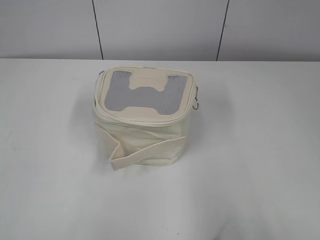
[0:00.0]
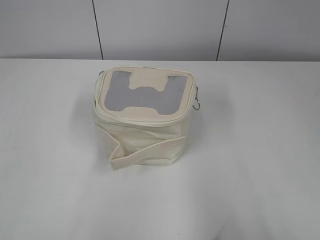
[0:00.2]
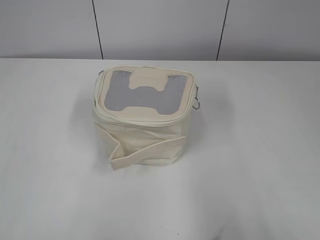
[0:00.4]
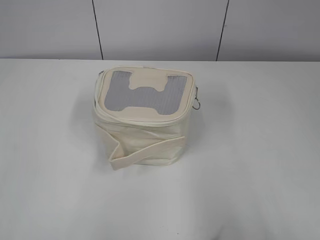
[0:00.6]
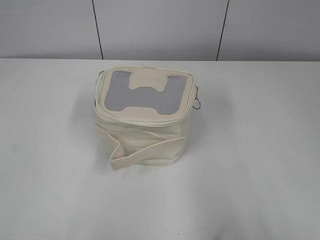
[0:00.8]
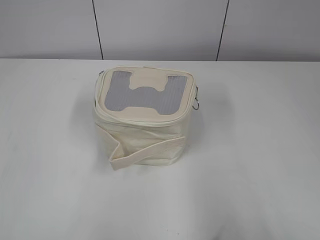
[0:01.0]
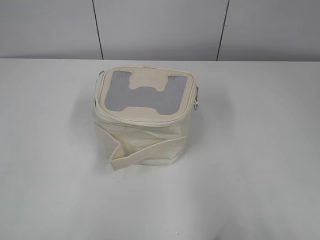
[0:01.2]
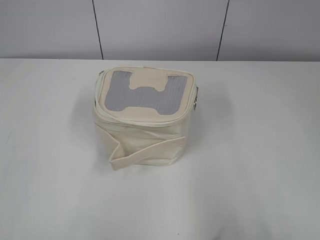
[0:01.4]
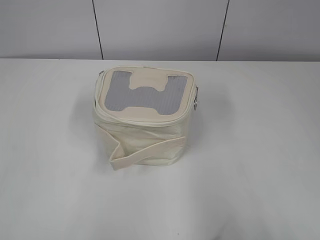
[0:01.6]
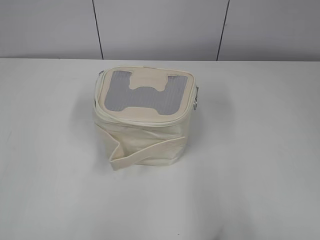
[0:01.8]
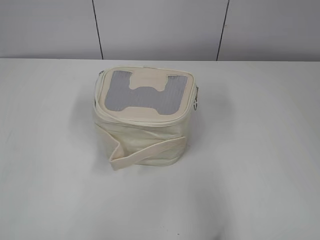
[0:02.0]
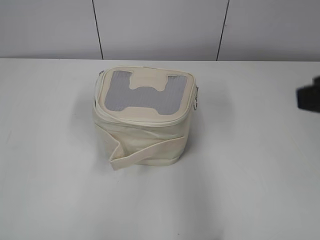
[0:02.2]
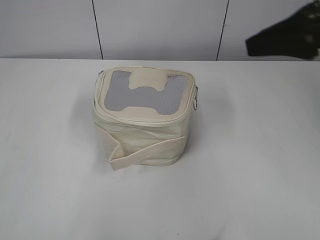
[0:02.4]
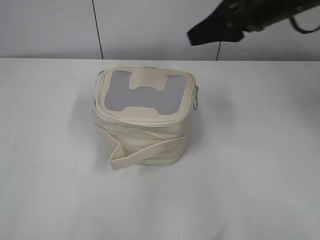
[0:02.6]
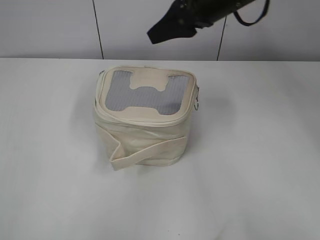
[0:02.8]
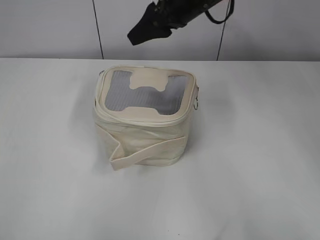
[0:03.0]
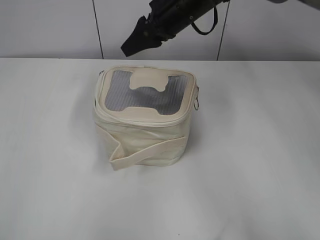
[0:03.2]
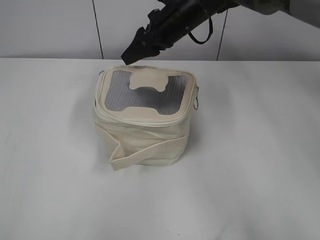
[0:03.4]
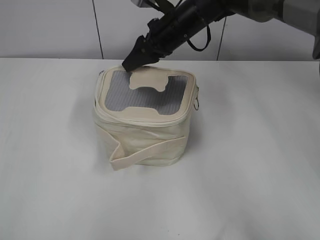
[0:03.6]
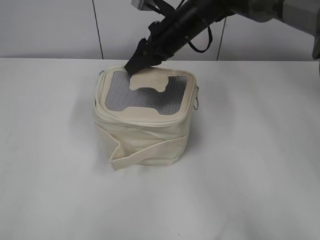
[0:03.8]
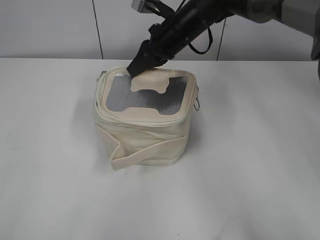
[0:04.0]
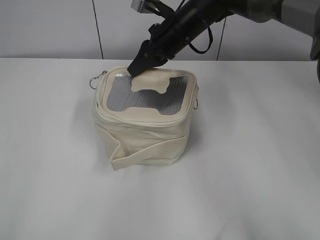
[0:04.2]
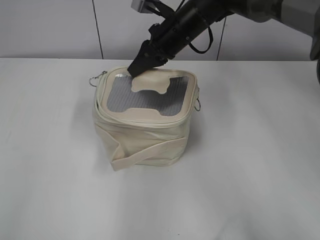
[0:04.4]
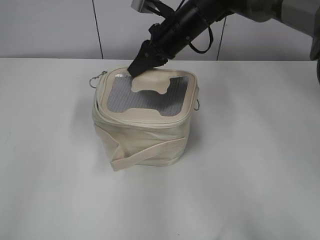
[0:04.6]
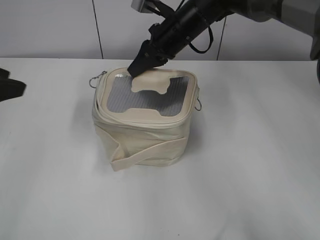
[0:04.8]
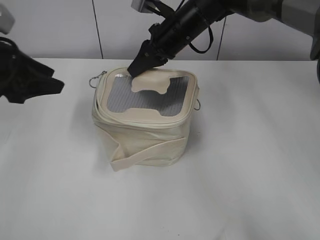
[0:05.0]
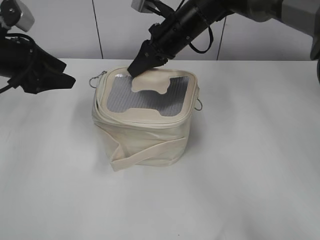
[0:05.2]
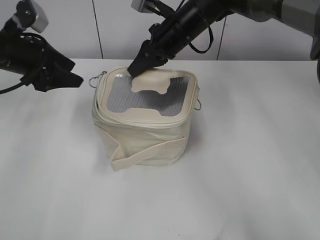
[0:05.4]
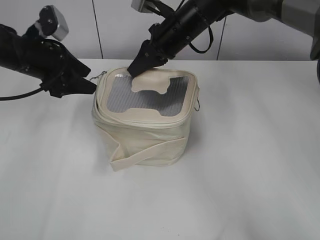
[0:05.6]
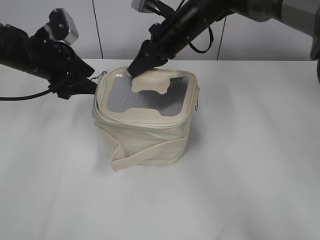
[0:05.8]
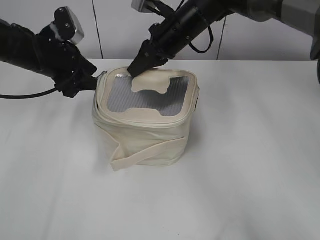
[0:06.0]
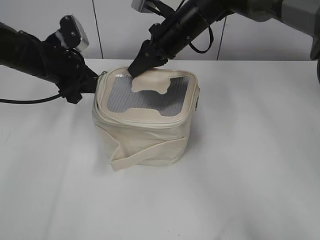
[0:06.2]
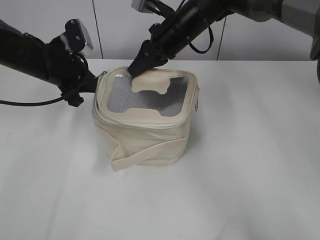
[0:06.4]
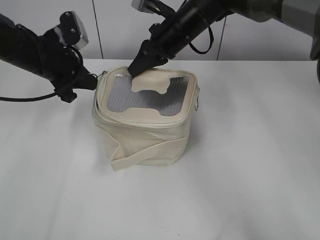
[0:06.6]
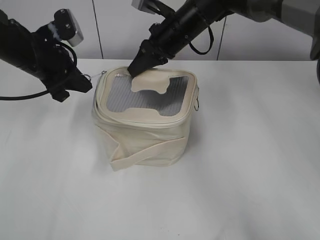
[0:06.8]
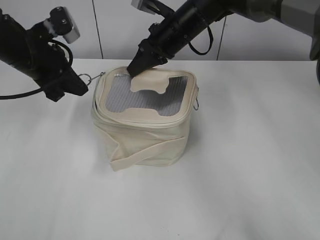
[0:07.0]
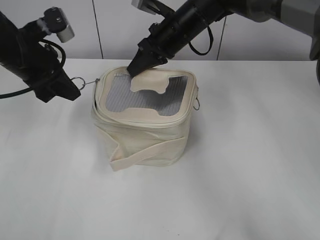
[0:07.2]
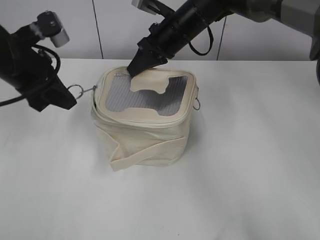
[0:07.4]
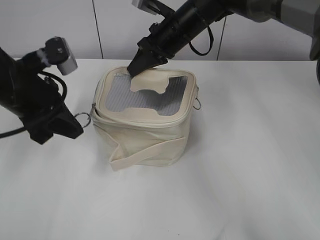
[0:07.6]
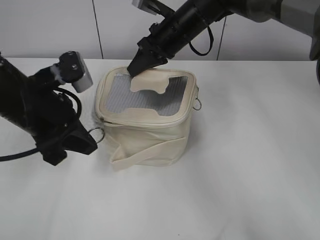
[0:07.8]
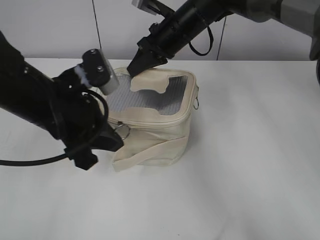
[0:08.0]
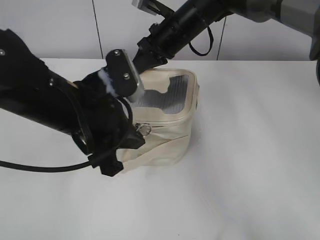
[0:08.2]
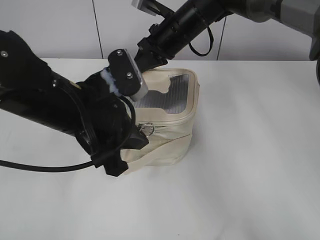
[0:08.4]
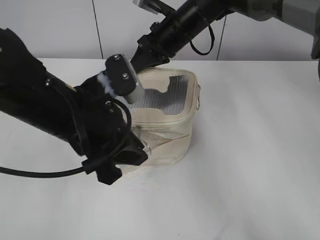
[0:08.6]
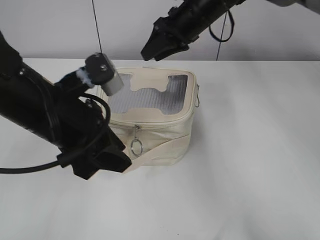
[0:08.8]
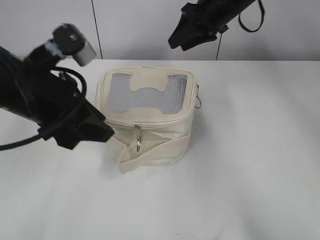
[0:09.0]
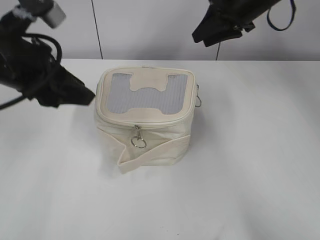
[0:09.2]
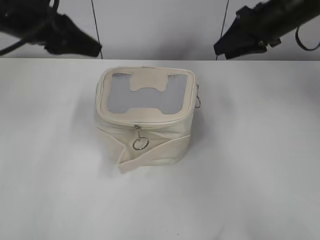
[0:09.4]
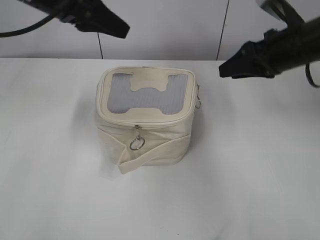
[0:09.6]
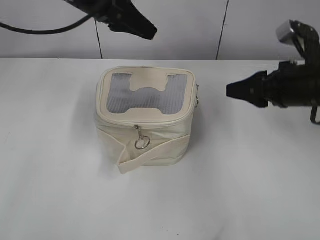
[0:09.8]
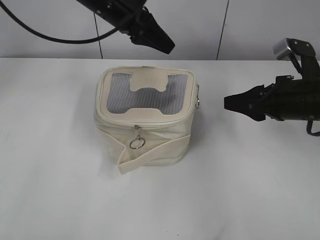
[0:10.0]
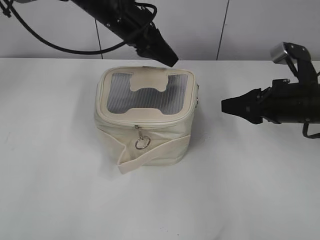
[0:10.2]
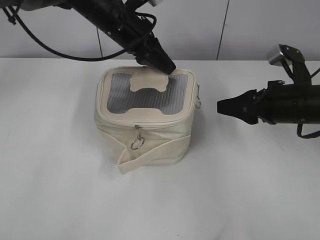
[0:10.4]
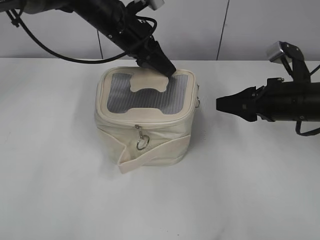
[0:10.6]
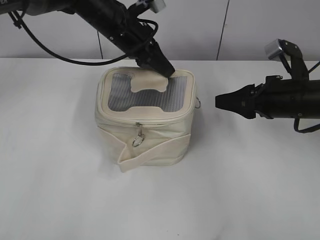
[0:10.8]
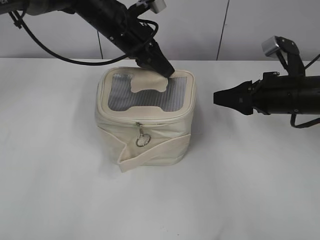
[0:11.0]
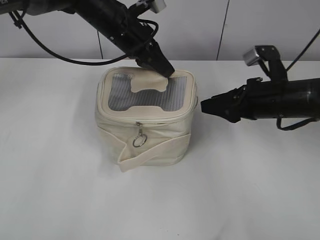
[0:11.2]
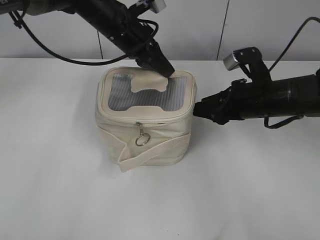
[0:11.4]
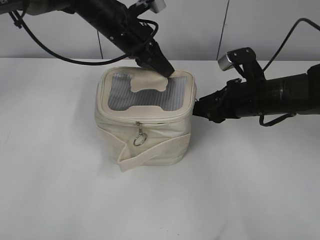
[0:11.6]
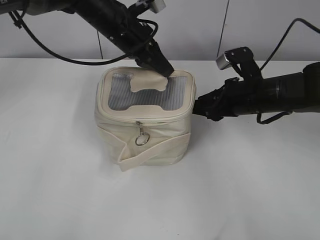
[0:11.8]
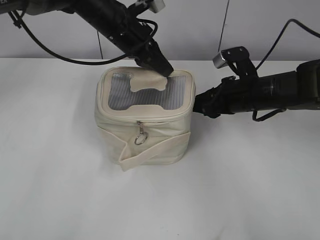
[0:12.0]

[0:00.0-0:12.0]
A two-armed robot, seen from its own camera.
Step, 0:00.0 to 0:08.6: Zip up the bag with your left hand.
0:01.6 to 0:03.0: The right gripper goes about 50 cm forward and to the left.
0:03.0 to 0:04.4: The right gripper moves downward, some 10 cm, and closes. The left gripper heads forward, covering approximately 5 cm.
0:04.4 to 0:06.0: The left gripper heads forward, covering some 35 cm, and opens its fingers.
0:06.0 to 0:07.6: The left gripper travels backward by some 10 cm, and closes.
0:07.6 to 0:09.0: The right gripper is displaced to the right by about 5 cm, and opens. The left gripper is displaced backward and to the right by some 10 cm, and opens its fingers.
0:09.0 to 0:10.4: The left gripper goes some 20 cm forward. The right gripper goes about 25 cm backward, to the right and downward.
0:10.4 to 0:12.0: The left gripper closes. Meanwhile the right gripper heads forward and to the left, covering about 10 cm.

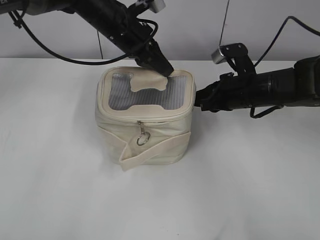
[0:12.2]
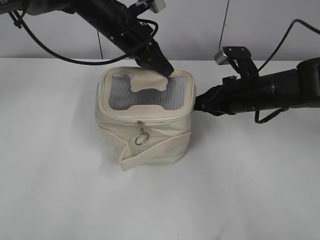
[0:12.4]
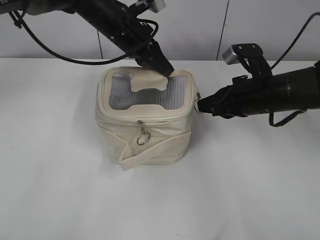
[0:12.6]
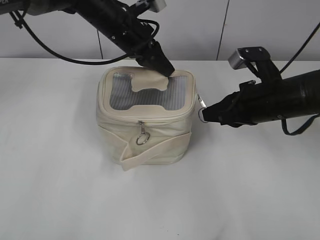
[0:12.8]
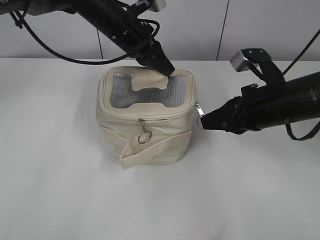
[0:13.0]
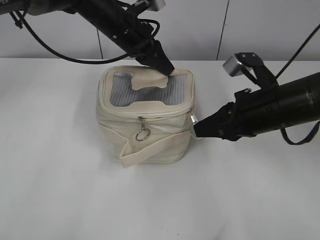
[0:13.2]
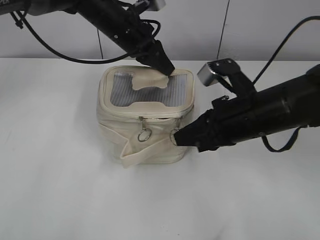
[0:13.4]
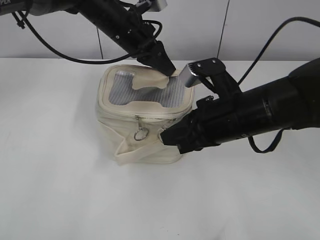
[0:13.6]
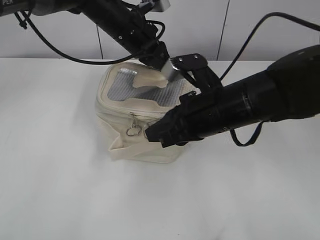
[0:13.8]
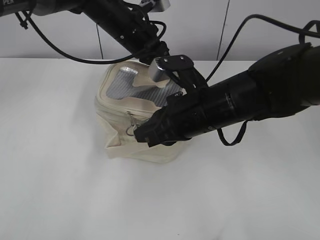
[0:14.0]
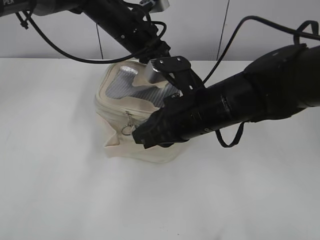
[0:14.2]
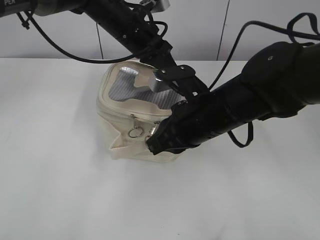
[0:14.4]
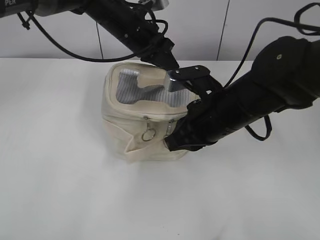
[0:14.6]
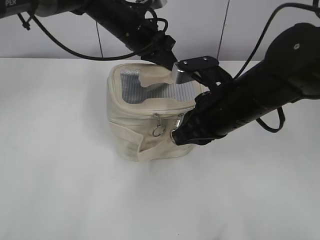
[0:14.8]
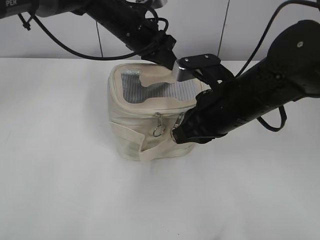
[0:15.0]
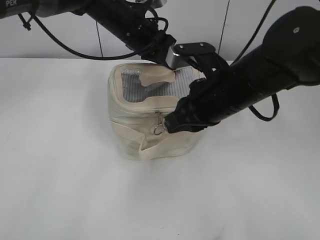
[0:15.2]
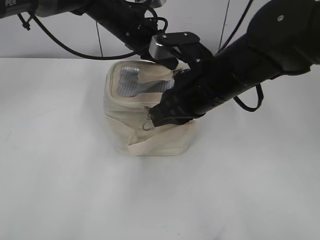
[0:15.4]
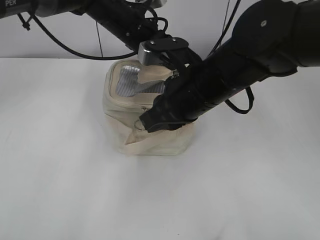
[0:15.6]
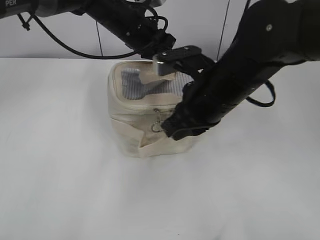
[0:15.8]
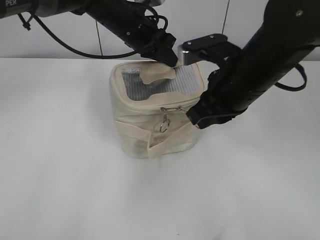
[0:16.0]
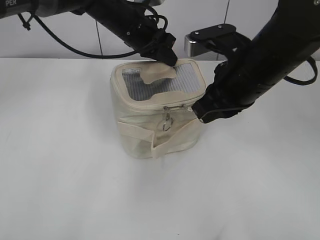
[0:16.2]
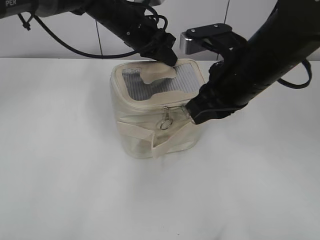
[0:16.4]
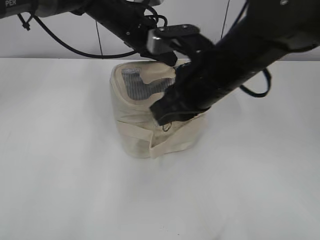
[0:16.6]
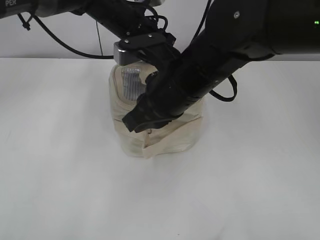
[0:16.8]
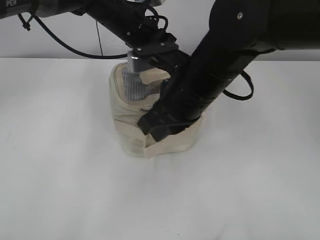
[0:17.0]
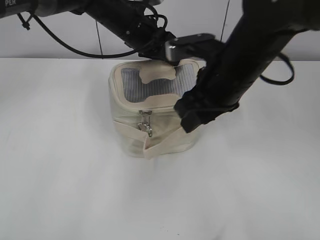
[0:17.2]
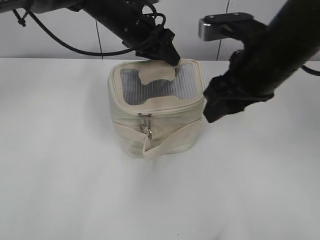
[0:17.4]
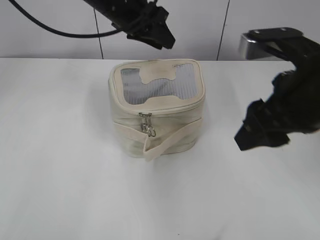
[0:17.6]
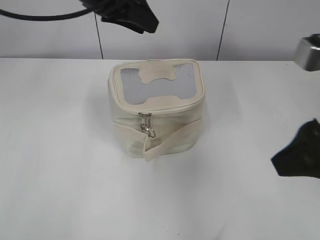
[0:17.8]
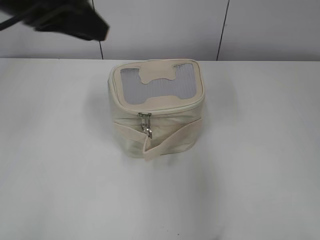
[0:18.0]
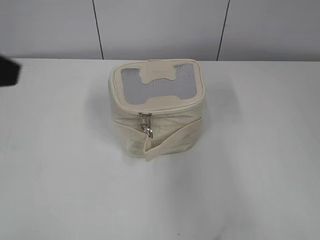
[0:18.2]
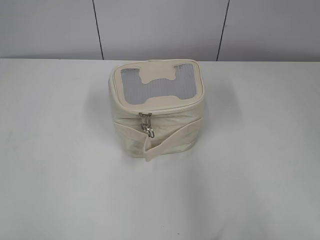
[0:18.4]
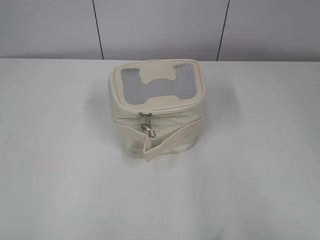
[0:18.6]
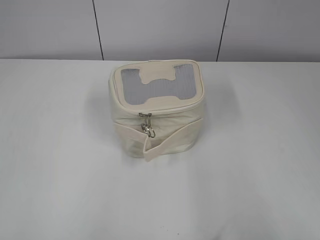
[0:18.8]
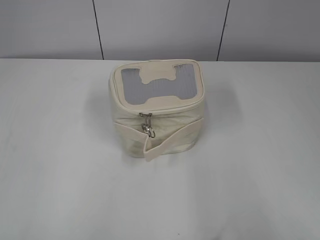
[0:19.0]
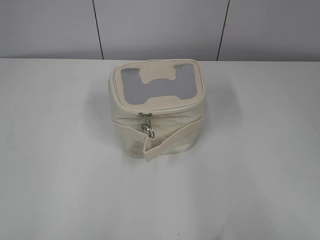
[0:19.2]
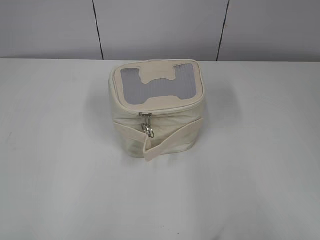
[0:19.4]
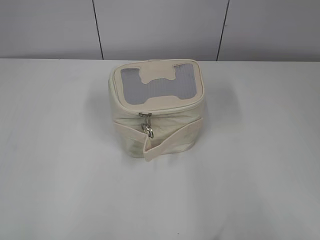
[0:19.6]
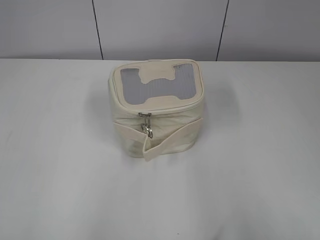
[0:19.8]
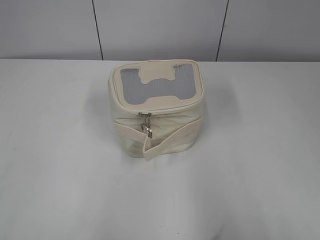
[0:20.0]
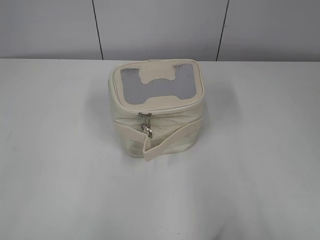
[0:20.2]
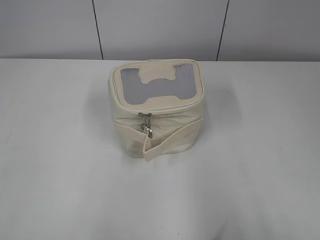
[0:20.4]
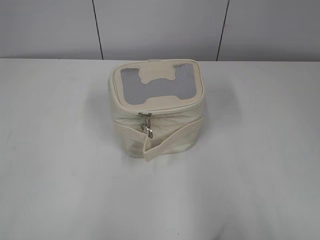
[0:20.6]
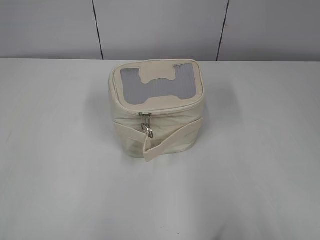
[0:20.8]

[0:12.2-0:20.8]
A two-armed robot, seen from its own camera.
Step, 0:12.2 to 0:17.0: Zip up the bag with your right hand.
0:12.2 to 0:13.6: The right gripper goes roughly 10 cm backward and to the left.
0:13.6 to 0:15.0: The grippers move only a little.
0:15.0 to 0:16.6: The right gripper ends up about 5 cm from where it was.
0:16.6 to 0:18.0: The left gripper is displaced backward, upward and to the left by approximately 20 cm, and opens up. Meanwhile the right gripper moves backward, to the right and upward, some 20 cm, and opens up.
0:18.0 to 0:19.4: The left gripper shifts approximately 35 cm backward and to the left, while the right gripper shifts some 15 cm backward and to the right.
